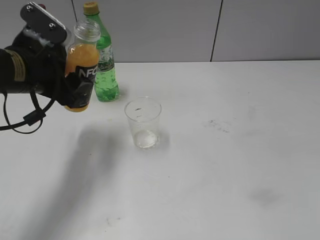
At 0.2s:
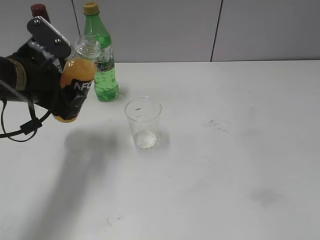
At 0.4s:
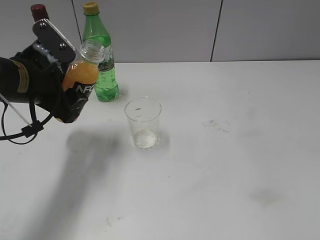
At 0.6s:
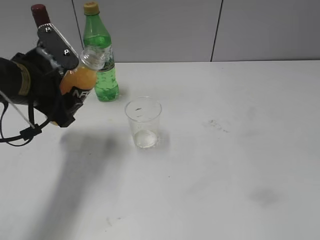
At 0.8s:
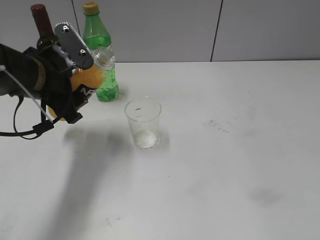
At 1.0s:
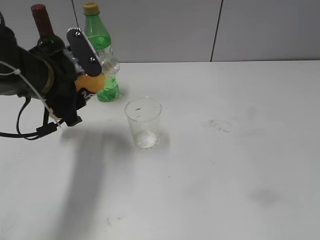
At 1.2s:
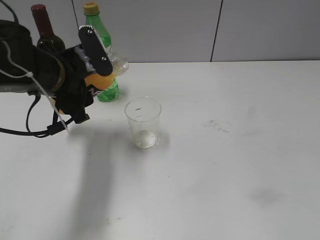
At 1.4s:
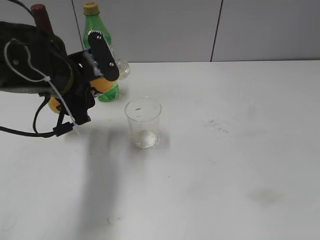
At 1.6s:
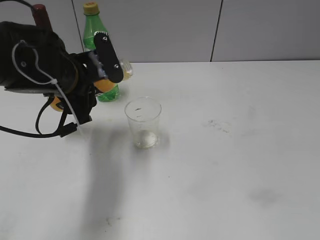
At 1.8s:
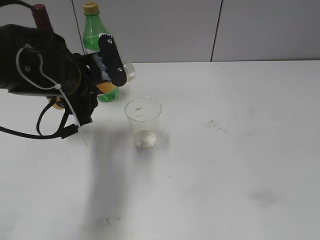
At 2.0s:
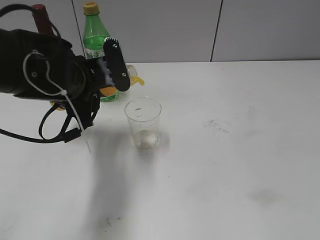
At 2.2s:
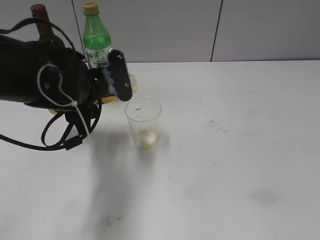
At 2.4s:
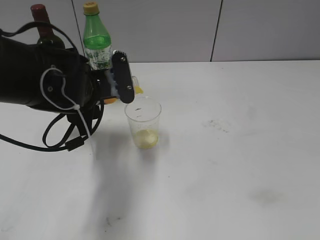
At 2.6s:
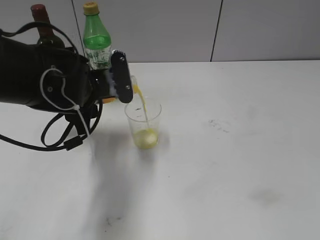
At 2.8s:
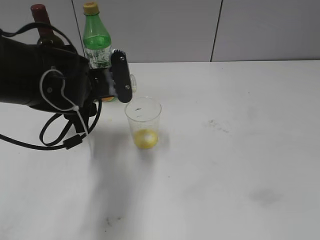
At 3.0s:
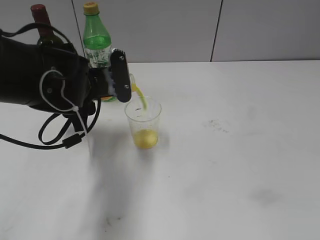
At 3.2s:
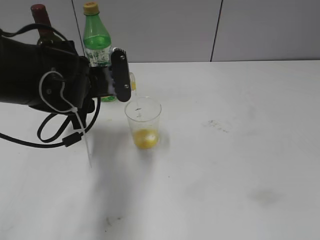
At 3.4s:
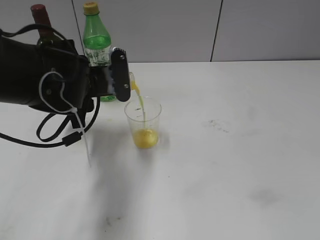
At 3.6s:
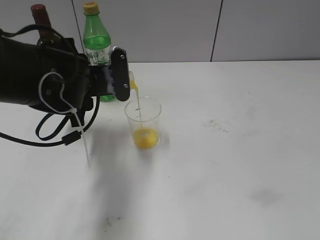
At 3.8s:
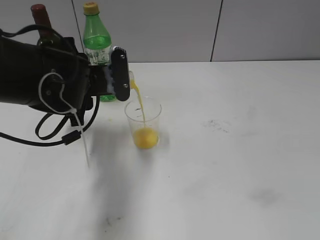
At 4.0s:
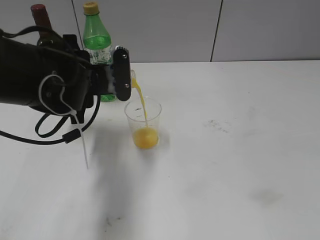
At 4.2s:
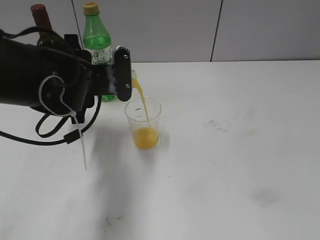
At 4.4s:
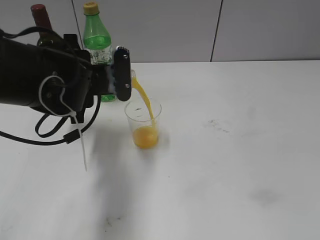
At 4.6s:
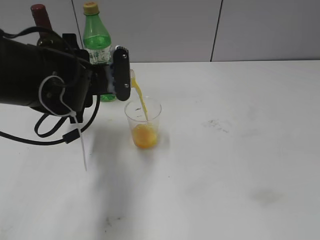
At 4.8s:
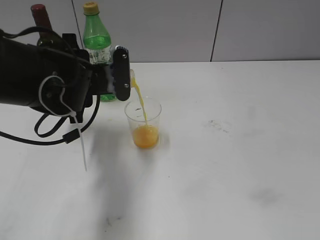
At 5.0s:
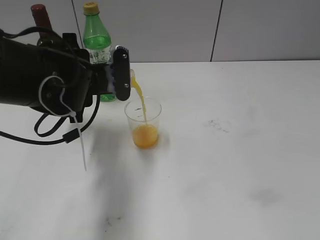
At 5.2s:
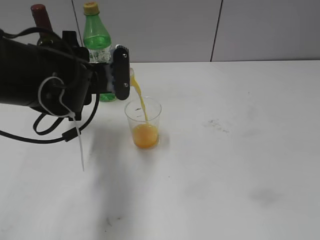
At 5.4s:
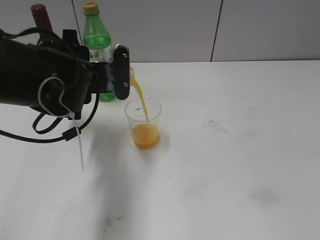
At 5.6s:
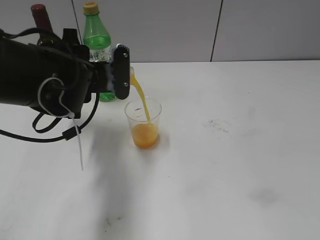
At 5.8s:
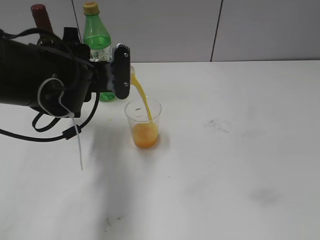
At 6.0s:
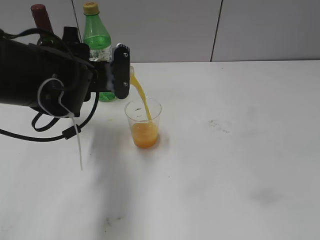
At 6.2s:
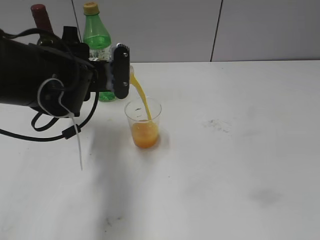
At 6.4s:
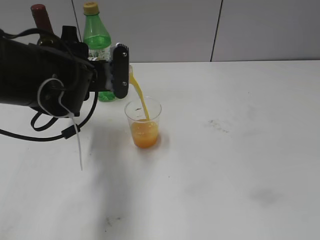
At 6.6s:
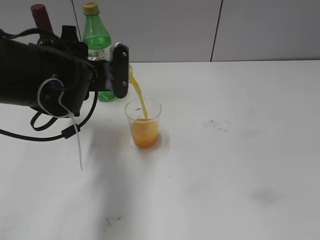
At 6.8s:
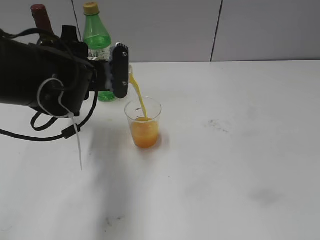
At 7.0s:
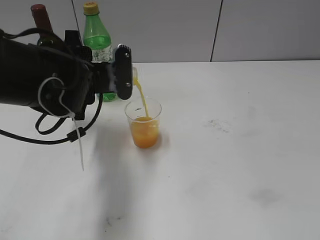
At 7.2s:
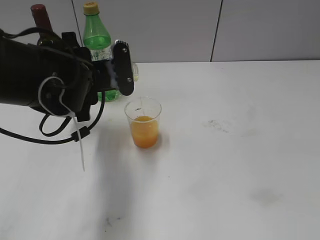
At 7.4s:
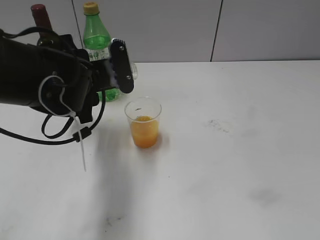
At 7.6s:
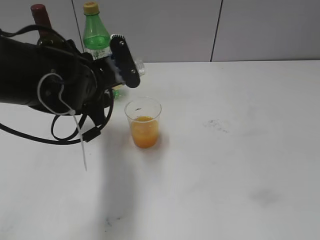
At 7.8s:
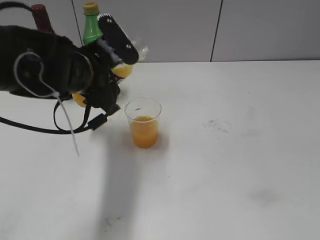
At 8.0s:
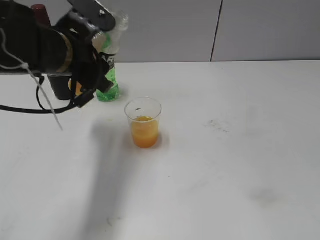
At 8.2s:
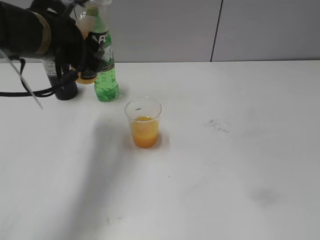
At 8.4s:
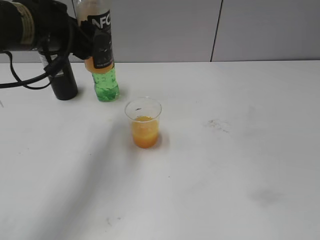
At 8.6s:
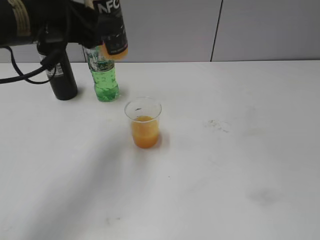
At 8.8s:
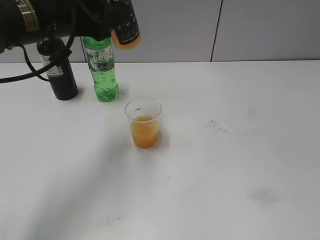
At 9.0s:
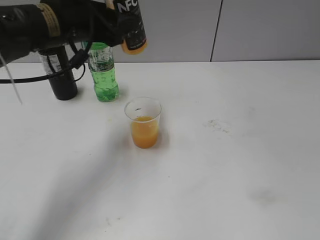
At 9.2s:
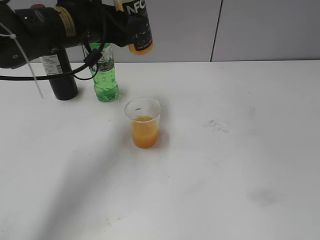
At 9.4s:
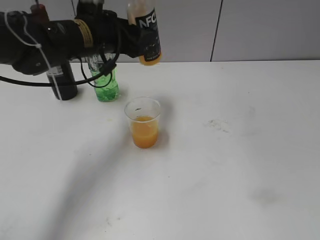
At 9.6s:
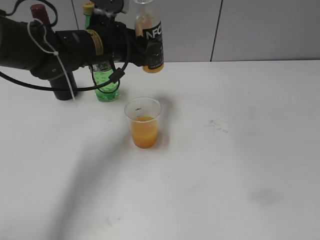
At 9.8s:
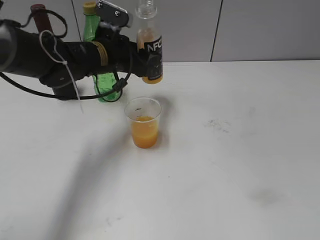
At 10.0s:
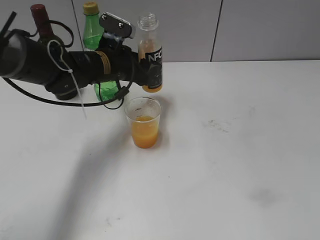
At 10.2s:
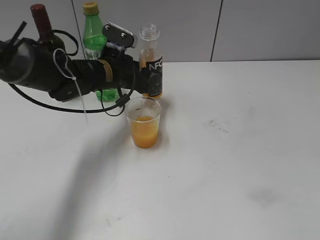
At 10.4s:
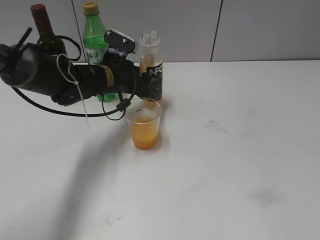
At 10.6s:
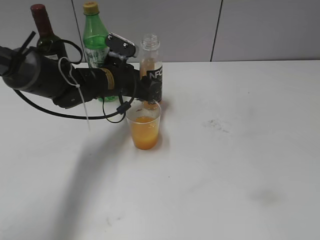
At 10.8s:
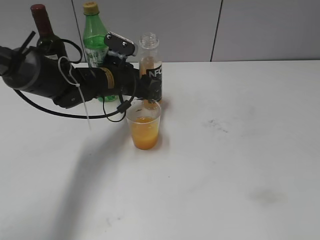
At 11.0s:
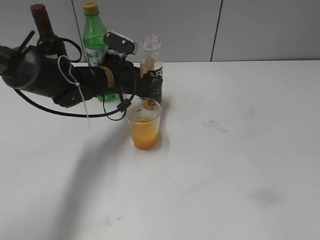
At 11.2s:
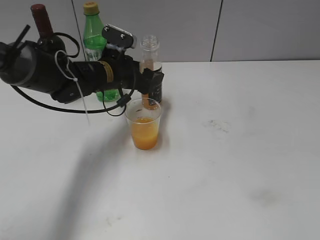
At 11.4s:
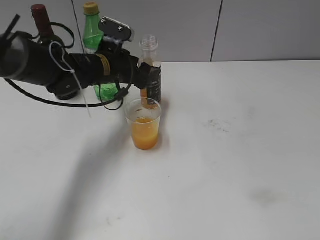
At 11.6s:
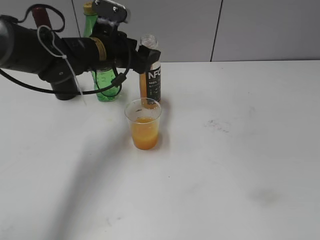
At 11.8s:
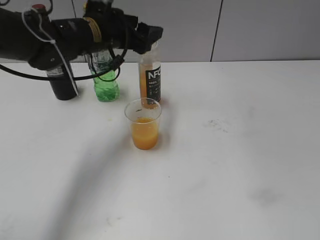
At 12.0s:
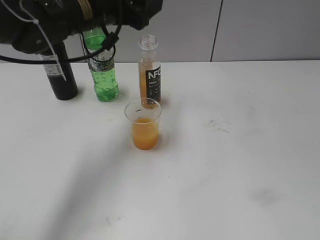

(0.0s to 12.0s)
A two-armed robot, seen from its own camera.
Step, 0.0s - 7.4s: Pour the orange juice from bottle to cup with left gripper.
Step, 7.6s - 11.4s: Place the orange juice bottle on the table with left gripper.
0.0s - 1.6s: The left gripper goes about 5 cm to the right.
1.6s - 3.0s: The grippers make only small movements.
3.0s - 6.0s: The grippers move only a little.
7.6s - 9.0s: The left gripper goes about 5 cm upward.
9.0s - 10.4s: The left gripper travels downward and forward by about 15 cm.
10.4s - 12.0s: The left gripper travels upward by roughly 15 cm, and opens.

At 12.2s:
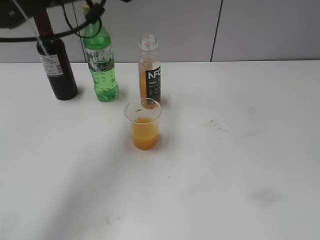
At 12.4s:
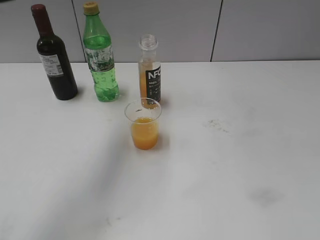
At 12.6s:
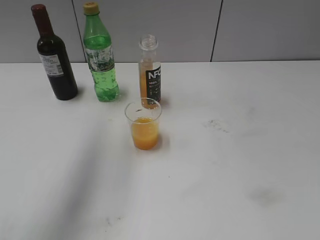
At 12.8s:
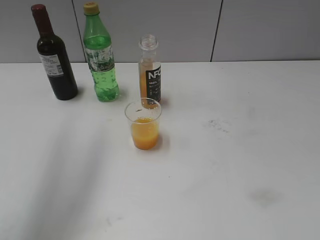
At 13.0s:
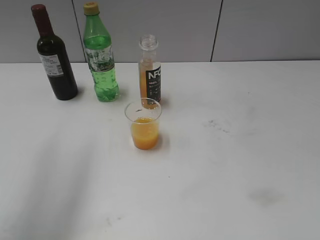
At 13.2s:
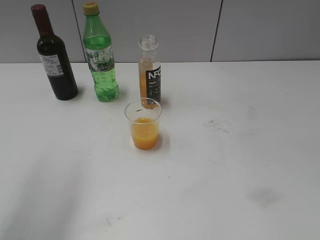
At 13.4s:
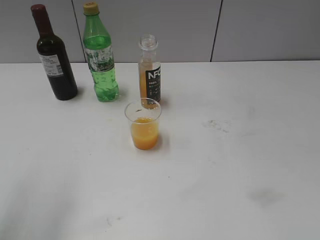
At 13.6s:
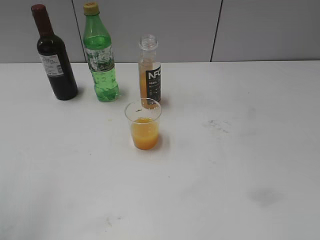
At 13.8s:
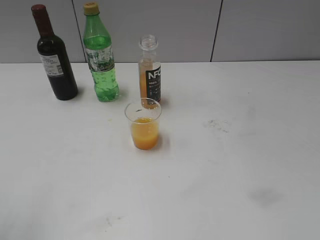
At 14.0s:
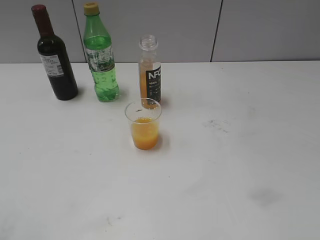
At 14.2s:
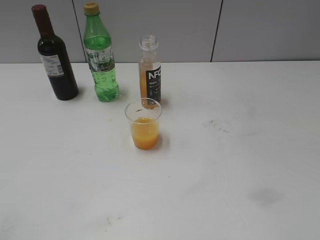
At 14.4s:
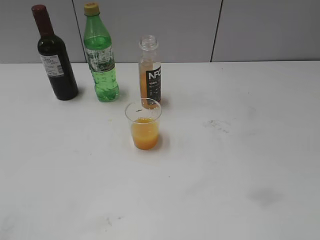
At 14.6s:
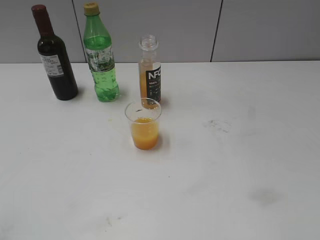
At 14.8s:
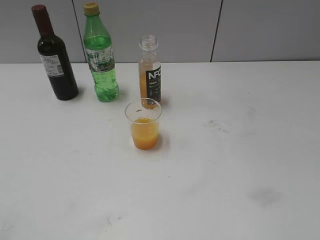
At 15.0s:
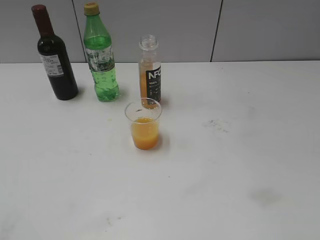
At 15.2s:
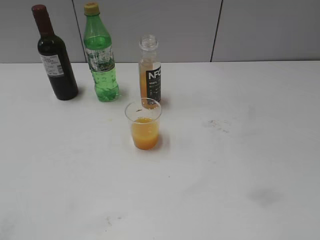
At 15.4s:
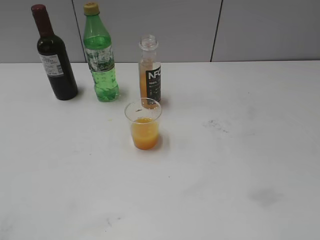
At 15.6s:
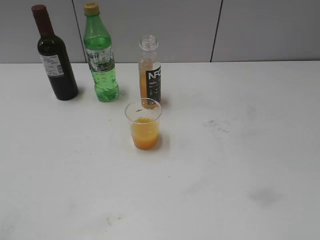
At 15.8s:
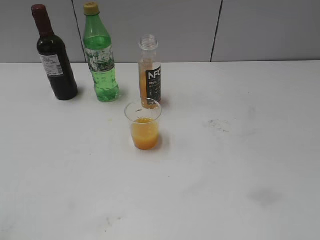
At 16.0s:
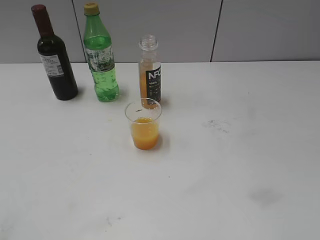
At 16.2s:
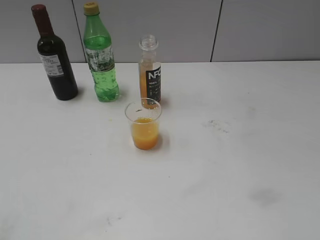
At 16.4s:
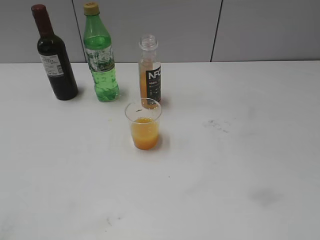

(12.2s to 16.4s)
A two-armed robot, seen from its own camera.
12.2s - 13.6s: The left gripper heads backward, to the left and upward, covering approximately 35 cm.
